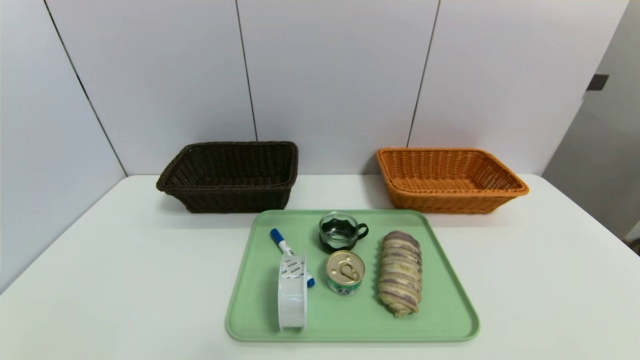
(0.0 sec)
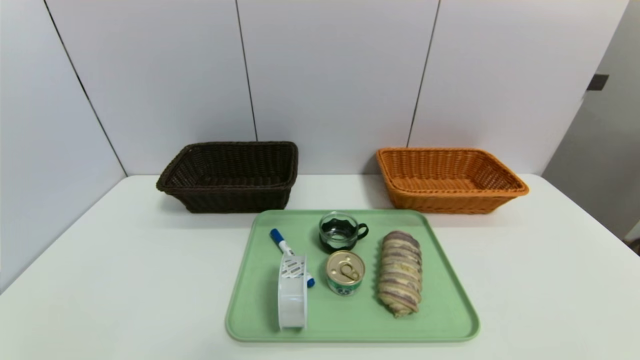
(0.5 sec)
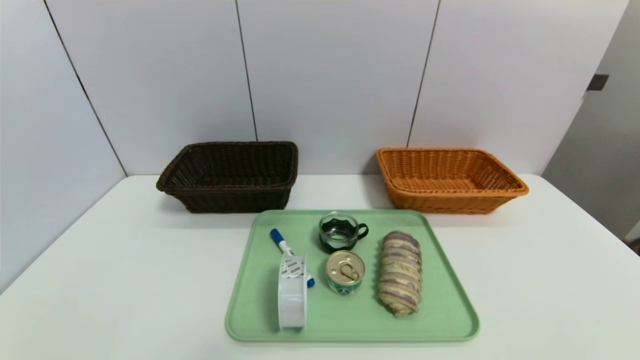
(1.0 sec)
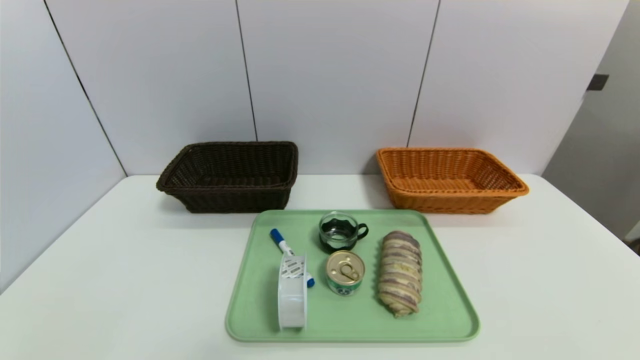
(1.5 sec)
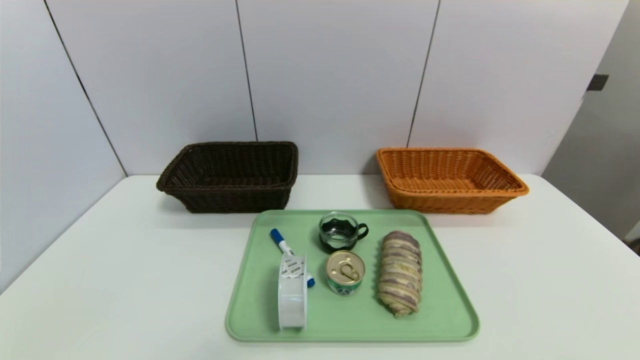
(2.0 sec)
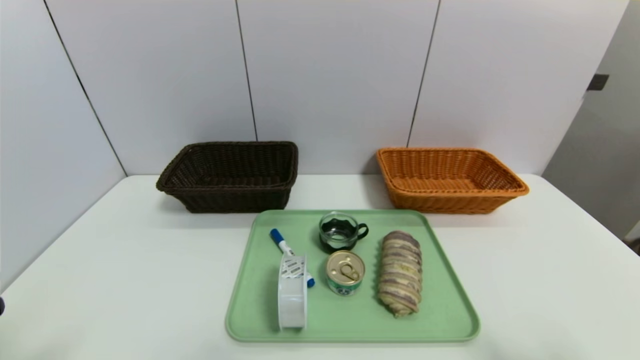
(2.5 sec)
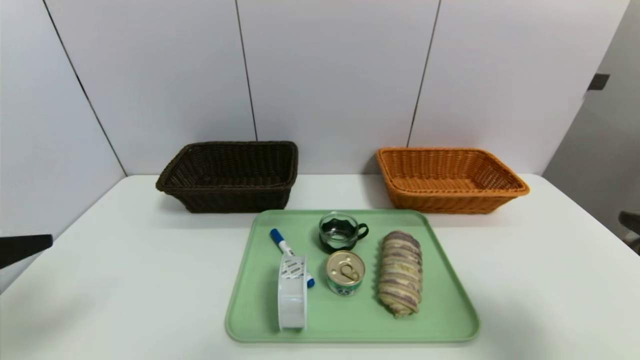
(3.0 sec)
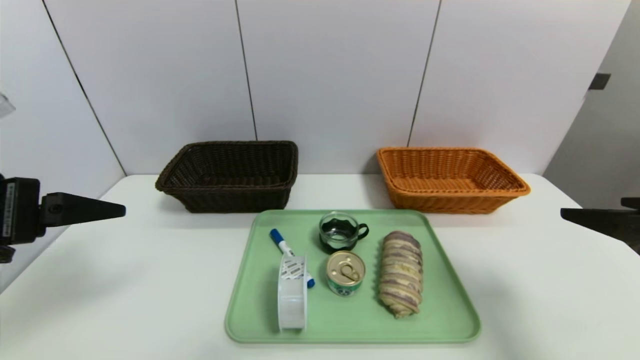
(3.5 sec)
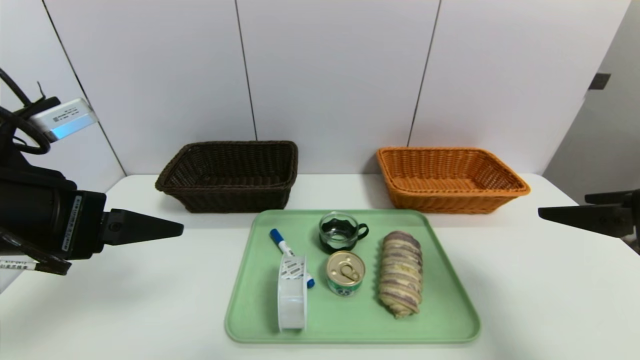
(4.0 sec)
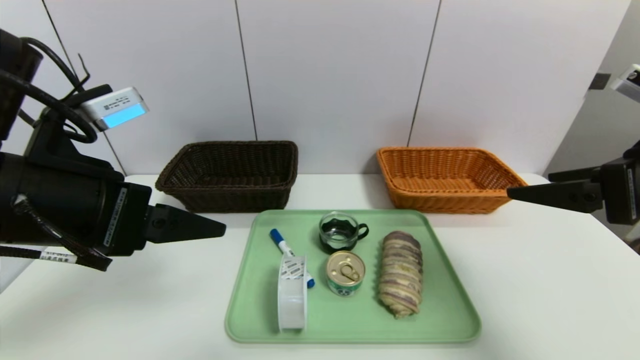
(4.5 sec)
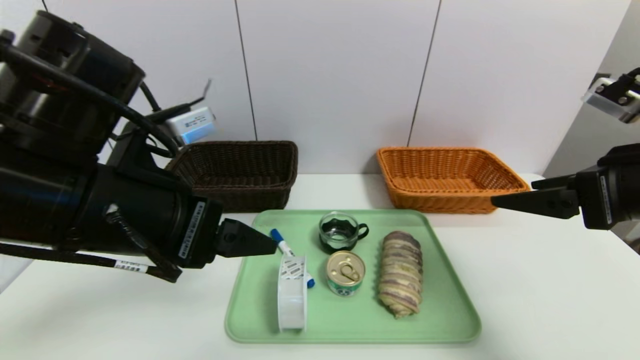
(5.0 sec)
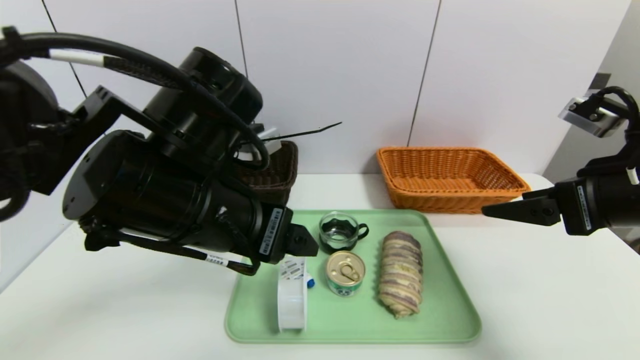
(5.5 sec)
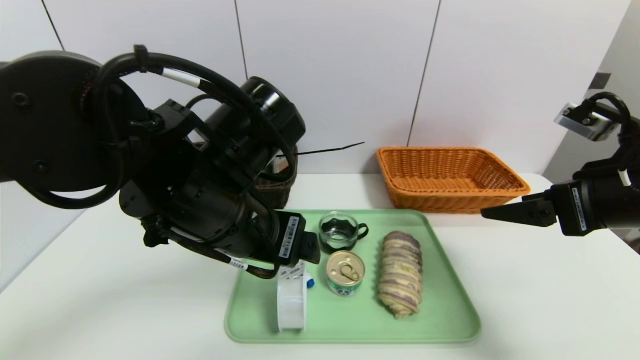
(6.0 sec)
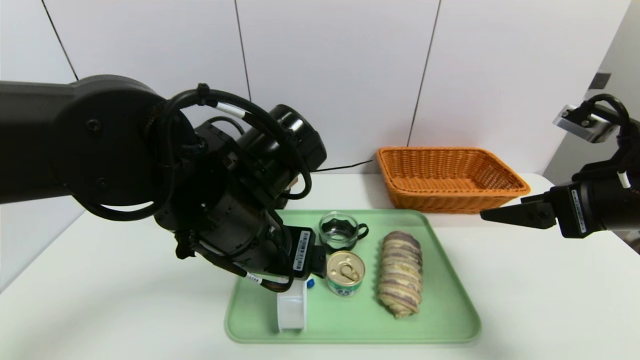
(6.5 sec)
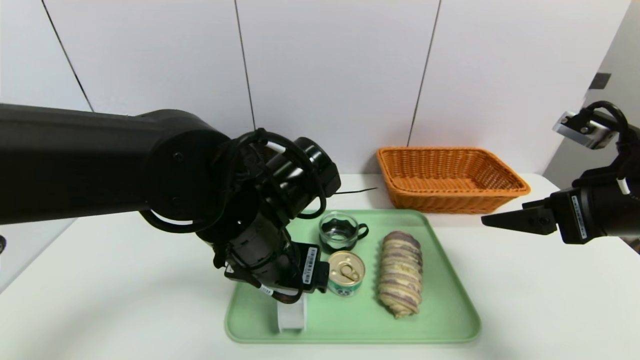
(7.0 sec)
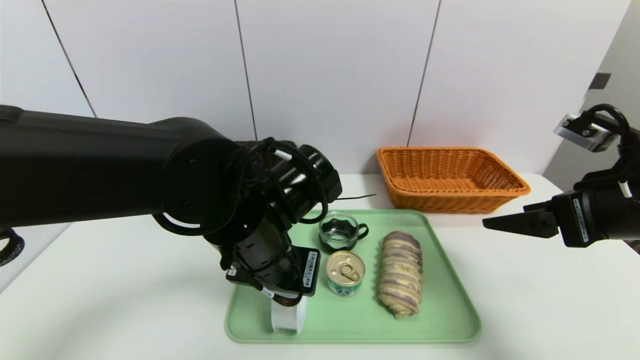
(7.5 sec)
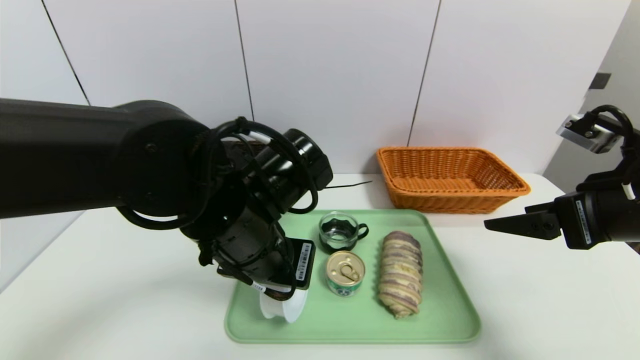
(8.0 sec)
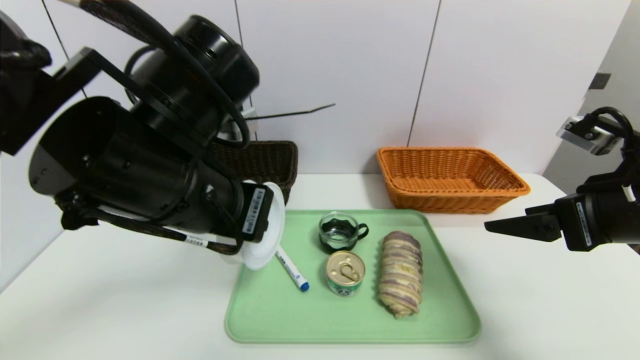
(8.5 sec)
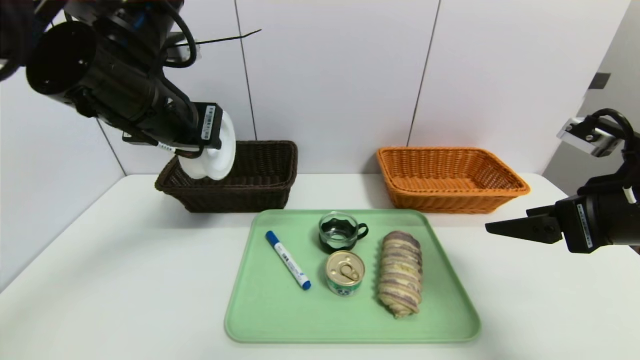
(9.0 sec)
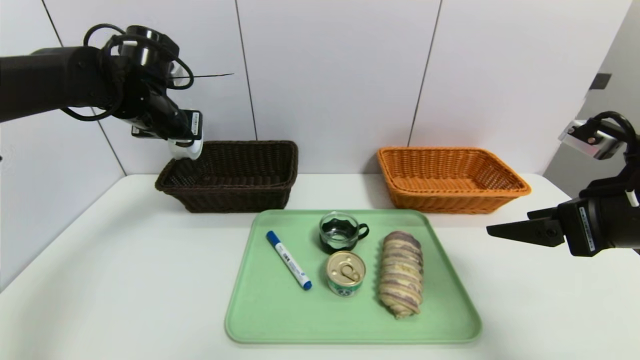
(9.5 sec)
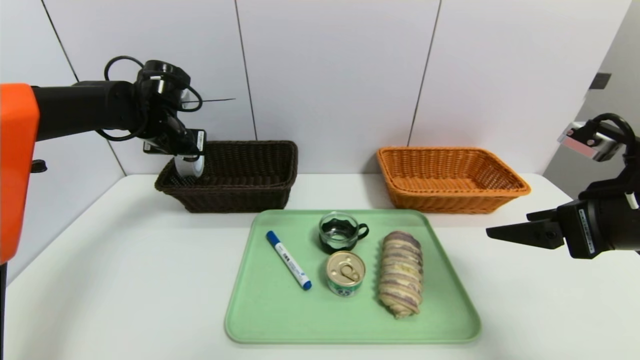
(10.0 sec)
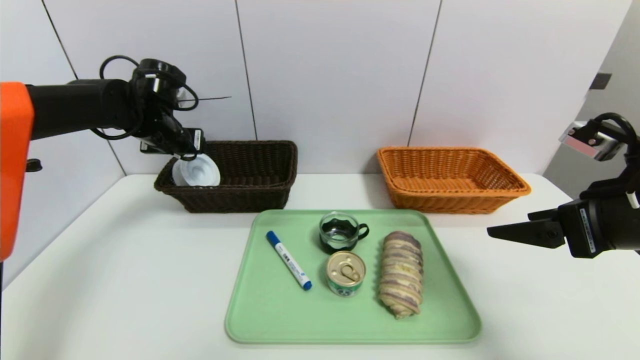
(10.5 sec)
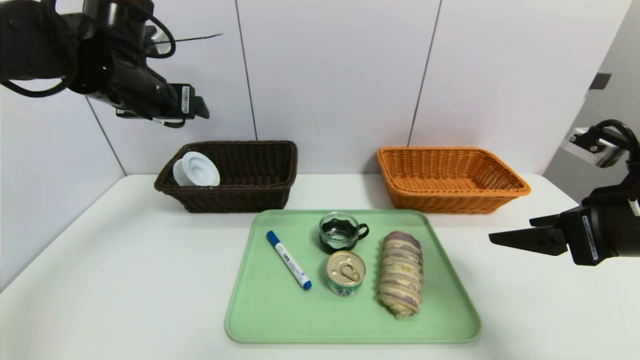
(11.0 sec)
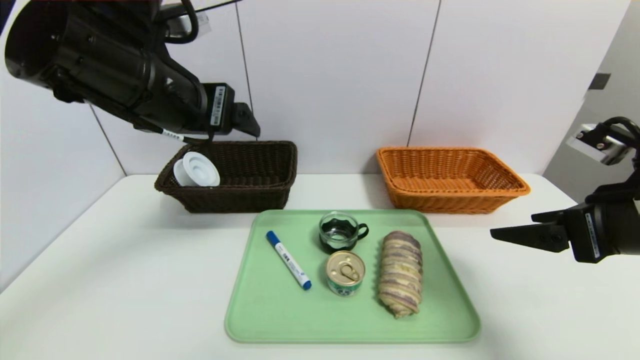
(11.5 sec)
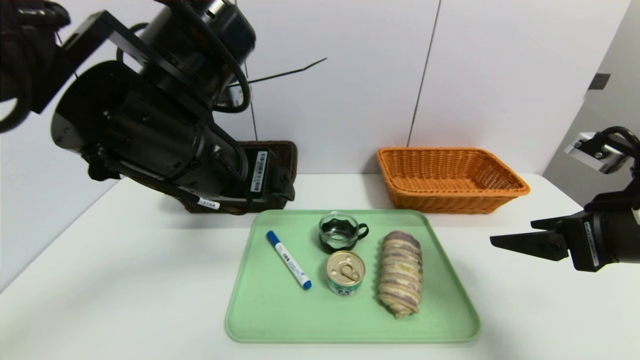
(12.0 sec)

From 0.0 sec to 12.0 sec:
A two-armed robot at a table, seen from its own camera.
Task of the whole recording: place the food in the right basket with the right gripper, and place the non food items in the left basket with the left gripper.
Step, from 0.0 sec to 11.0 sec: Grasp the tape and put it in the left basket.
From 2.0 sec to 4.0 sec: The grippers both shift forward and upward by approximately 25 cm.
From 4.0 sec to 6.0 sec: The left gripper moves to the right, approximately 15 cm, while the right gripper shifts by some 5 cm.
From 6.0 sec to 8.0 sec: The left gripper closes.
From 8.0 sec to 10.0 sec: The left gripper is displaced forward and to the left by about 30 cm.
From 10.0 sec to 12.0 sec: The left gripper is displaced backward and to the right by roughly 25 cm, and opens its fingers.

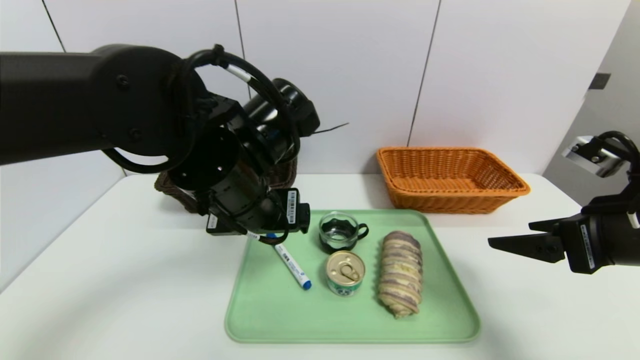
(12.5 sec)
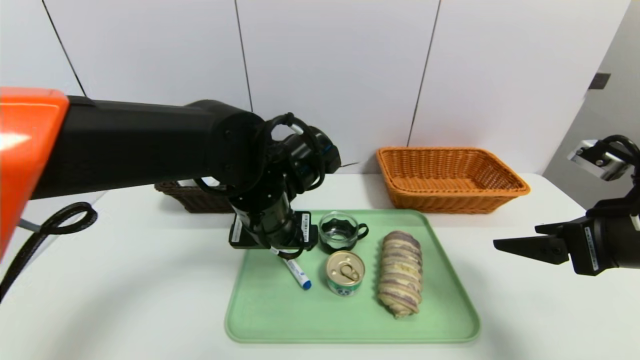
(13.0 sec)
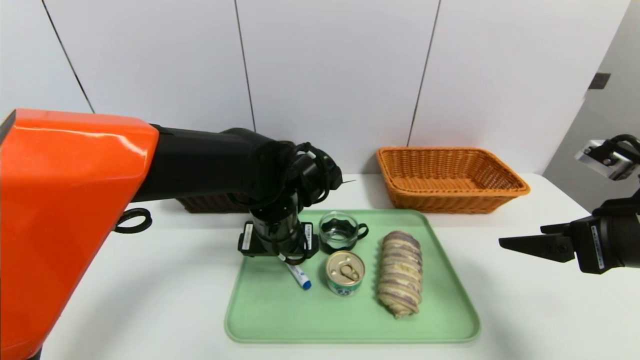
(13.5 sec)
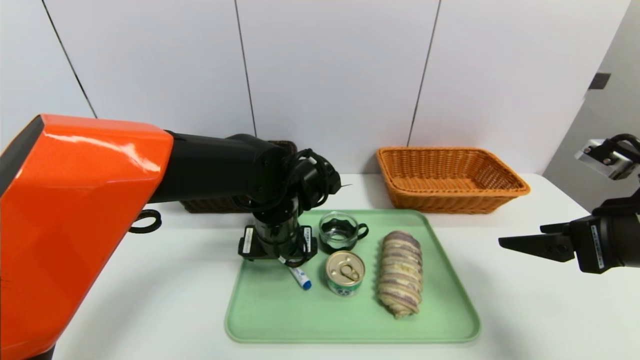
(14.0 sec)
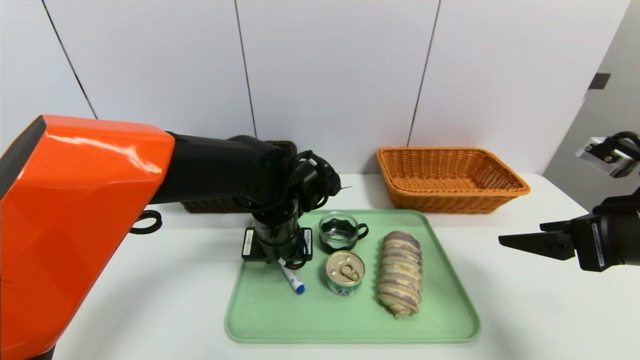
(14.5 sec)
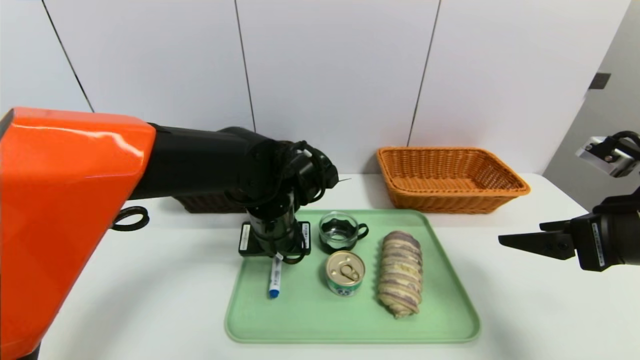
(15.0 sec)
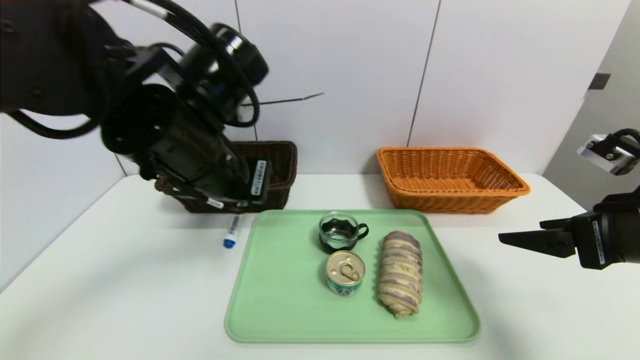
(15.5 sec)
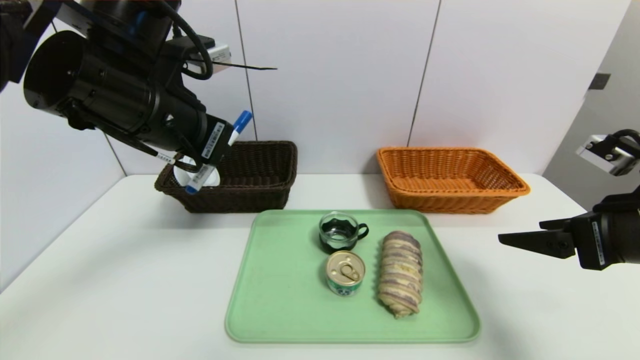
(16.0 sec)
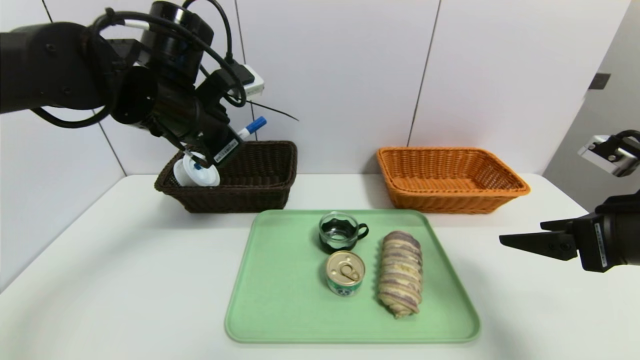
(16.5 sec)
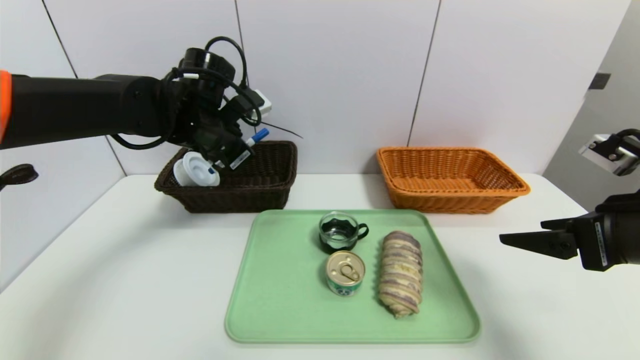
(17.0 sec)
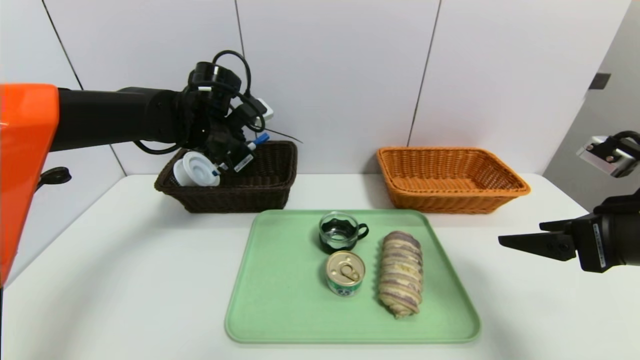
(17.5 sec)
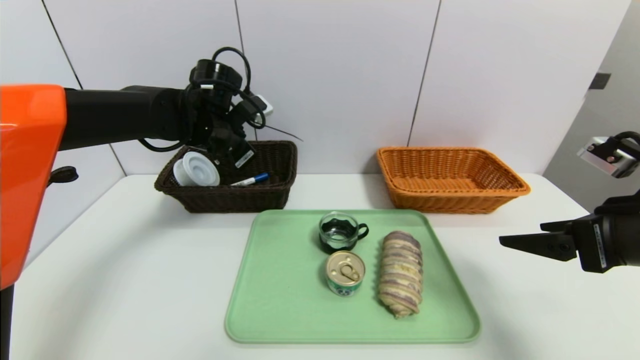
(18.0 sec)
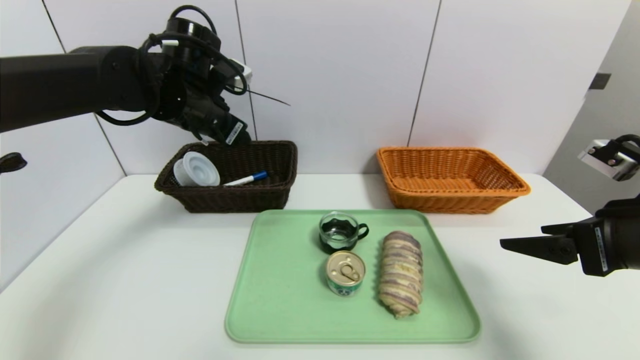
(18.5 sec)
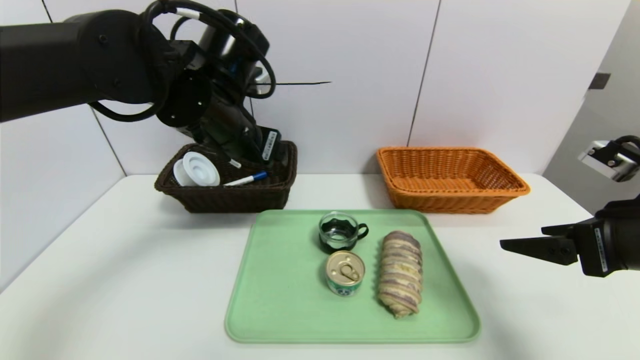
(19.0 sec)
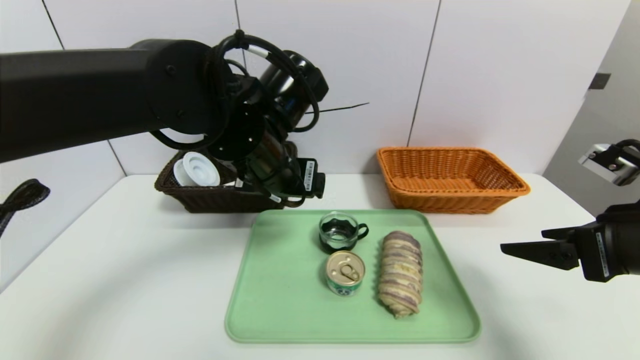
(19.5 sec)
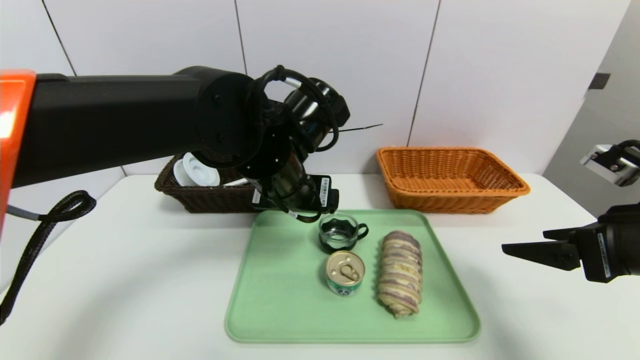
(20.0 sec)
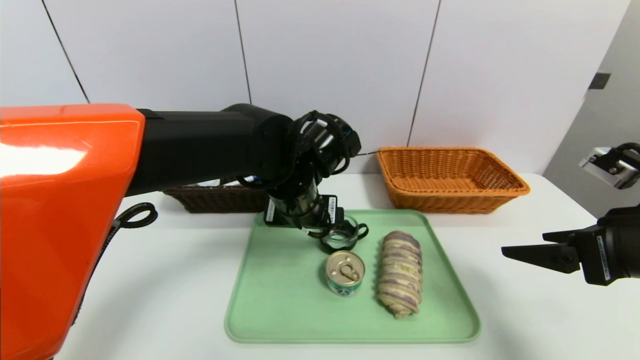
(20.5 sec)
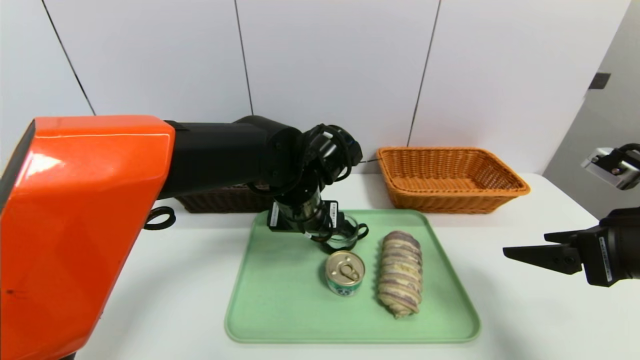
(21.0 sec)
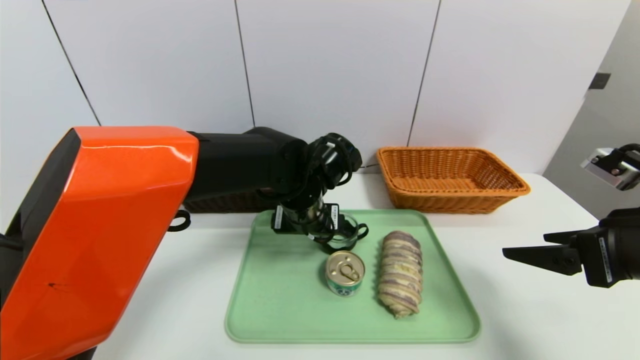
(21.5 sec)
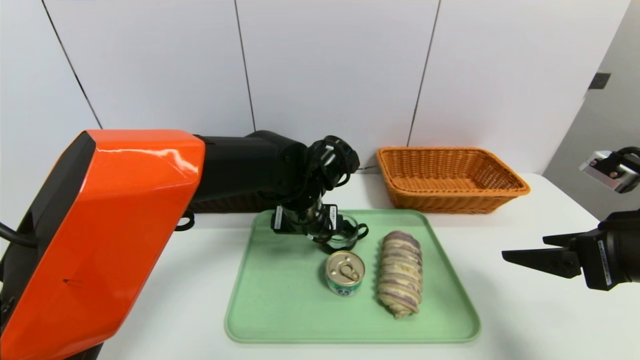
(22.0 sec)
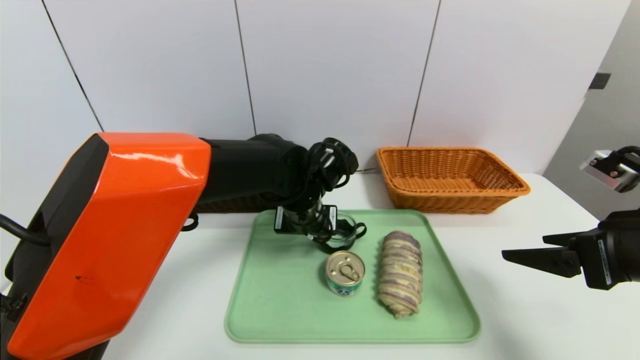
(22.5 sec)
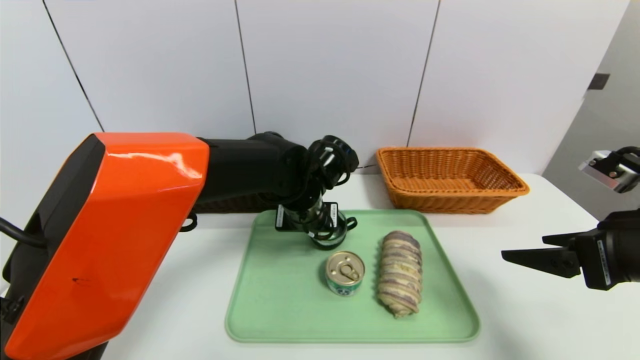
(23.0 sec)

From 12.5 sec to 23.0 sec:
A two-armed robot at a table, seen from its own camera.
Task of the whole recording: place the food in the right basket with the right gripper, and place the non food items in the left basket with the left gripper.
Step, from 12.5 sec to 18.5 sec: Grasp the blue marker and put it in the left basket.
From 12.5 sec to 14.5 sec: The left gripper goes about 10 cm downward and forward, and closes.
From 14.5 sec to 16.5 sec: The left gripper travels upward and to the left by approximately 20 cm.
From 16.5 sec to 19.0 sec: The left gripper travels to the right by some 5 cm, goes forward and returns, roughly 10 cm each way, and opens its fingers.
From 19.0 sec to 21.0 sec: The left gripper travels downward and to the right by about 15 cm.
From 21.0 sec to 23.0 sec: The left gripper closes up.
